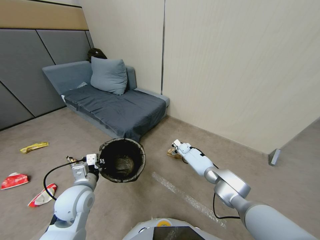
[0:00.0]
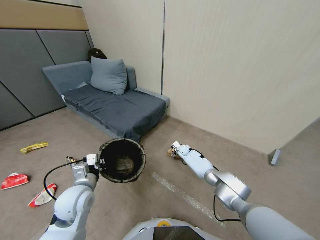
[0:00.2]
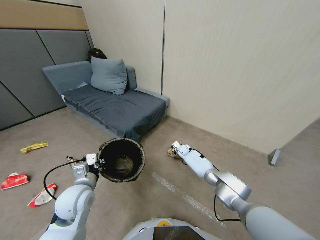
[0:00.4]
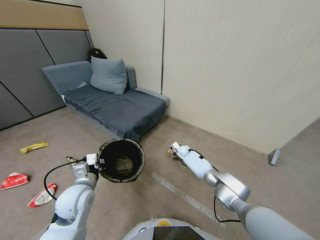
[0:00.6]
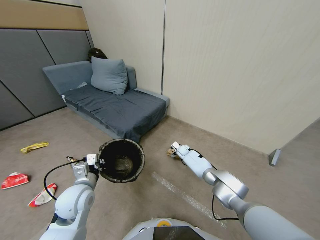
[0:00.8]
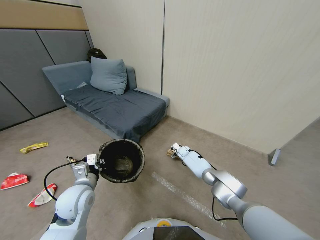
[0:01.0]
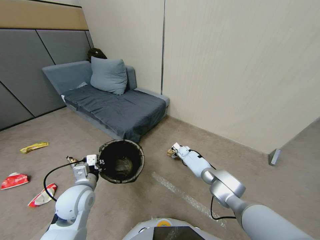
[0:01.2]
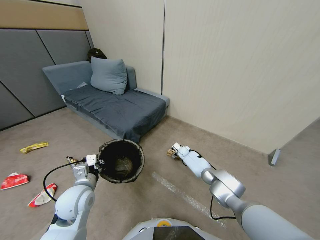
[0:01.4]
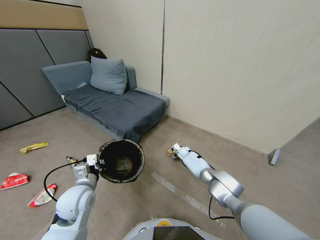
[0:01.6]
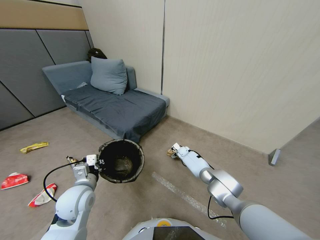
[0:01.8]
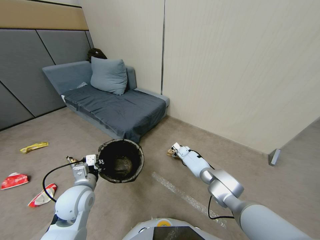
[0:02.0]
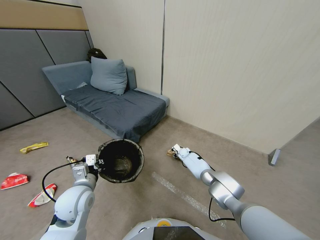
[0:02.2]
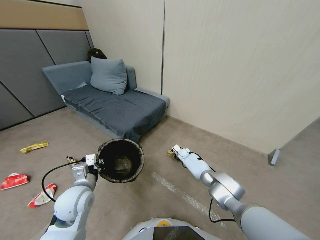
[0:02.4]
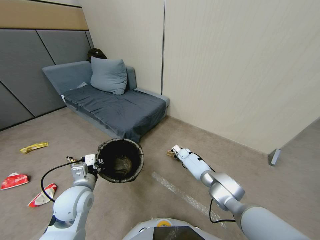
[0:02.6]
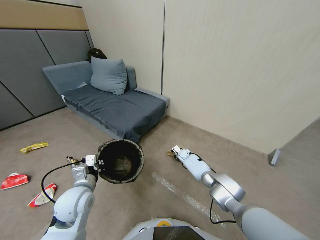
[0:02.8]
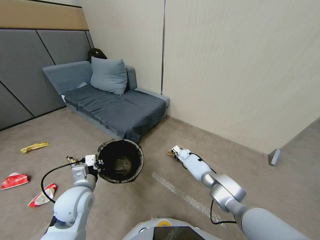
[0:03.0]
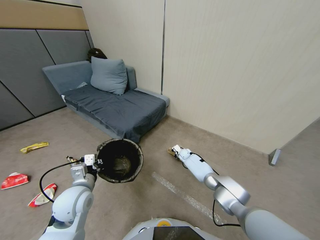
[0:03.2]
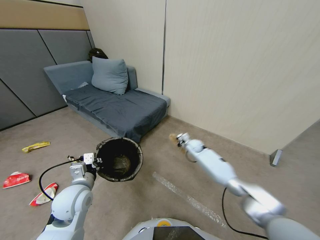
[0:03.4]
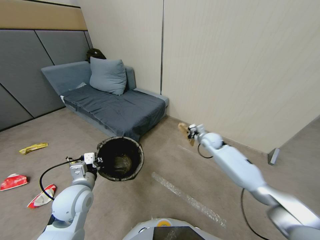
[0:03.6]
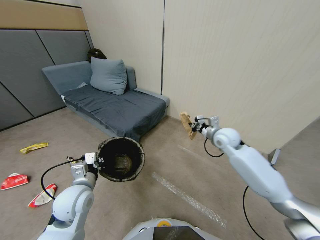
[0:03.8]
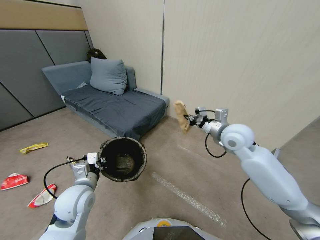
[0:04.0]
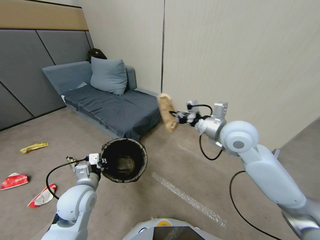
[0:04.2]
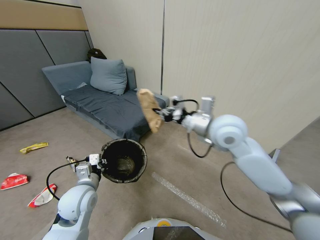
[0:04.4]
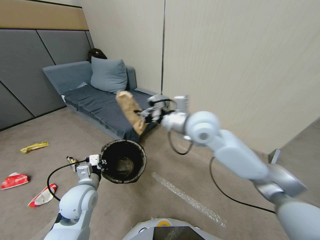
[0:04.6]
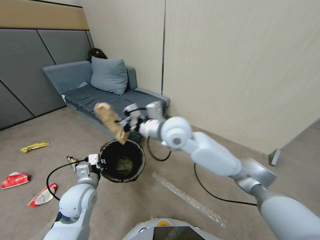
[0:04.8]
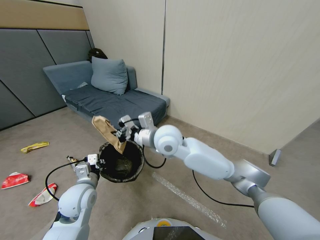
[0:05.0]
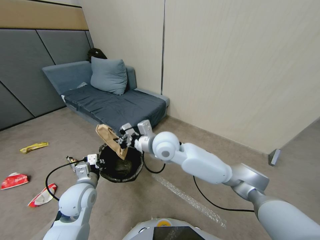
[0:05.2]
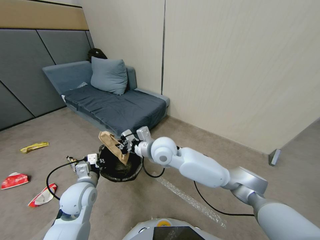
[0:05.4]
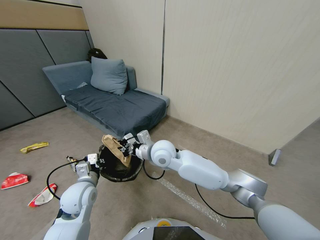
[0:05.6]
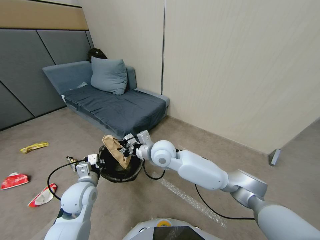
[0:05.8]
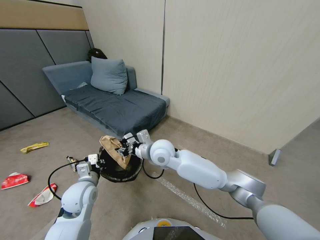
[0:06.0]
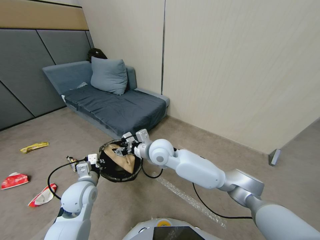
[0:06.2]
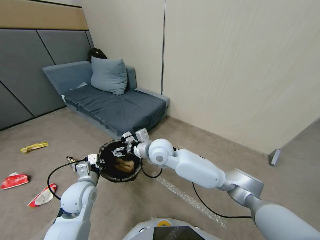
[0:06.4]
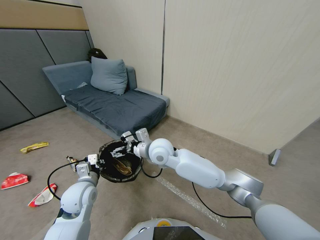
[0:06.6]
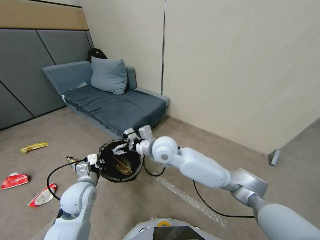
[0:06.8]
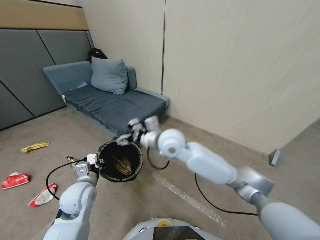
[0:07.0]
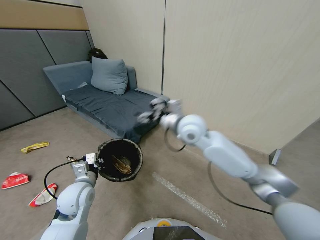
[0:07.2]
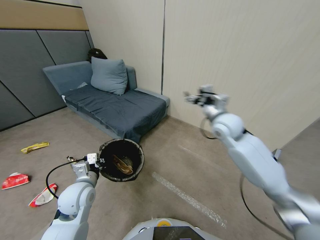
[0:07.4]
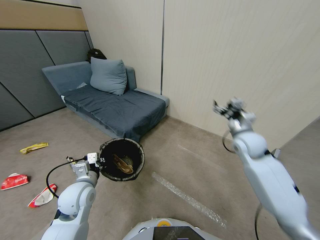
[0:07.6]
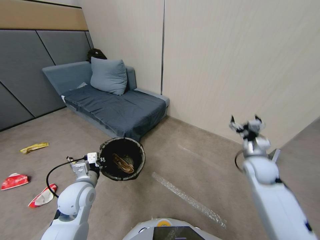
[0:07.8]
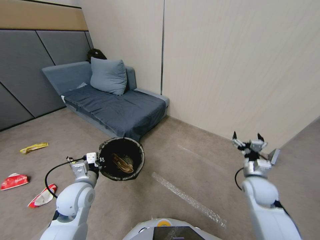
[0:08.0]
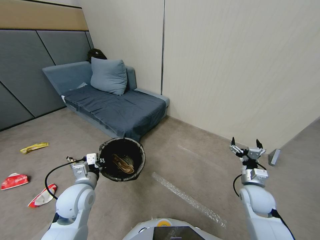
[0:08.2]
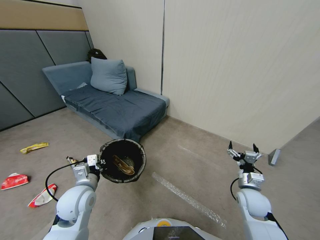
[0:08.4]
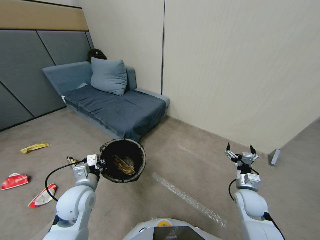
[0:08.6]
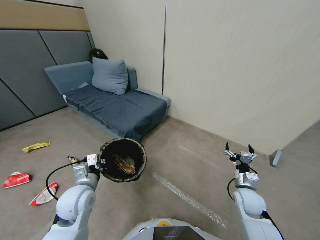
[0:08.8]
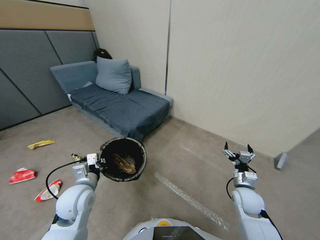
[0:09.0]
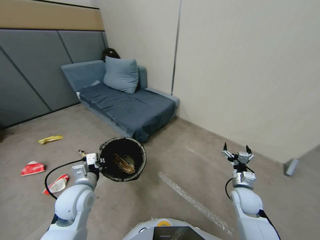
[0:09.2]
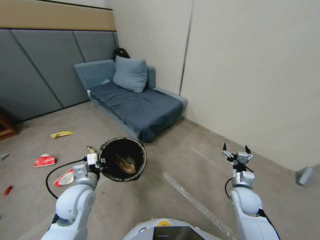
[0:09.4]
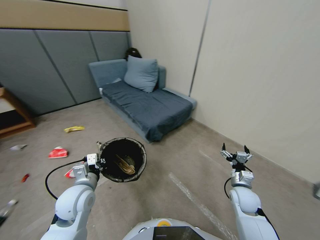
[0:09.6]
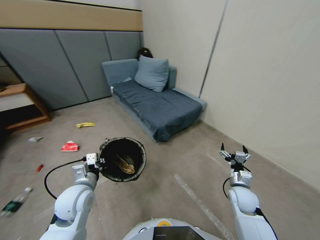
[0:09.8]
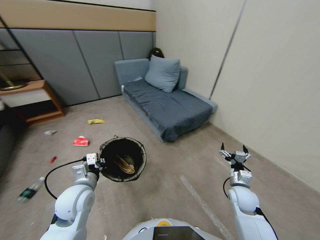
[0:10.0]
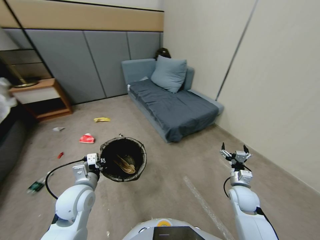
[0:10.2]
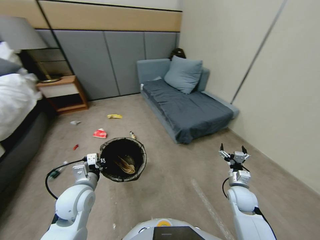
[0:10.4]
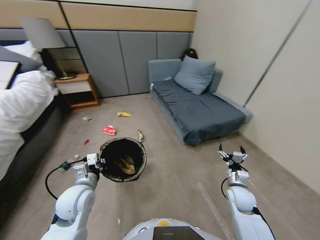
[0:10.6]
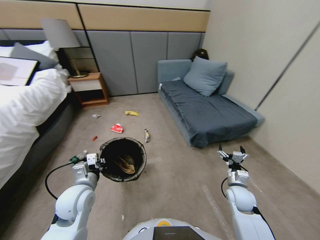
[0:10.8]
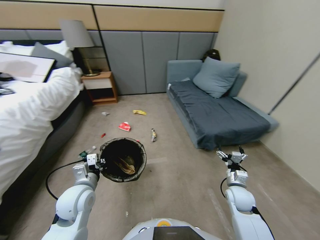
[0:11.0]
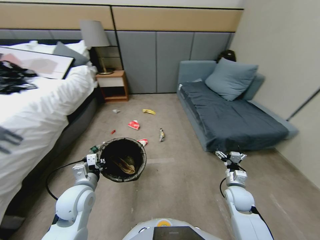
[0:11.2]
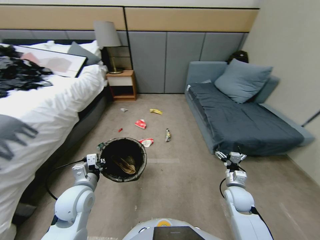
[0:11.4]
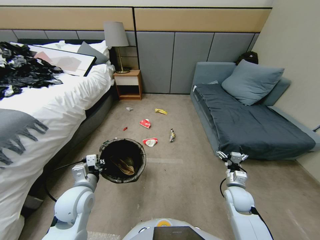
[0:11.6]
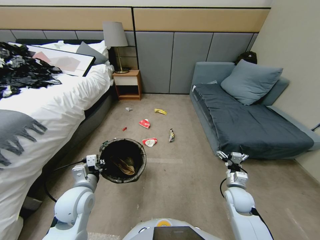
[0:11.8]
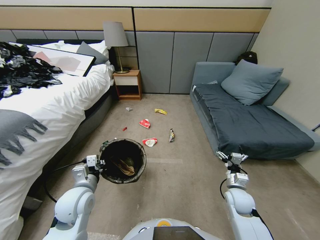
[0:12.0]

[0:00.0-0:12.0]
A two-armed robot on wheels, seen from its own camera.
Task of the whole recording: Pick up the trash bin, then pick up the garbage from the floor and place it into the trash bin.
0:00.0 to 0:01.6: There are only small adjustments of the grippers.
0:01.6 to 0:03.0: The right gripper closes its fingers.
0:03.0 to 0:04.4: The right gripper moves upward and backward, approximately 50 cm.
0:04.4 to 0:06.0: The right gripper moves to the left and downward, roughly 20 cm, and opens.
0:06.0 to 0:07.6: The right gripper travels to the right by approximately 35 cm, and opens.
0:07.6 to 0:09.0: The right gripper heads downward and backward, covering about 20 cm.

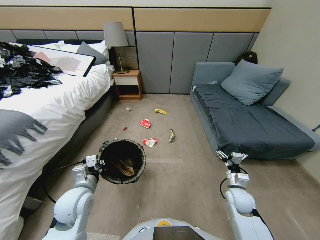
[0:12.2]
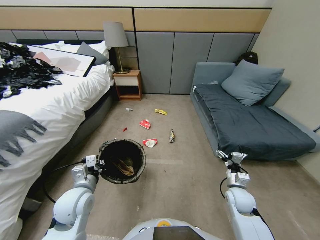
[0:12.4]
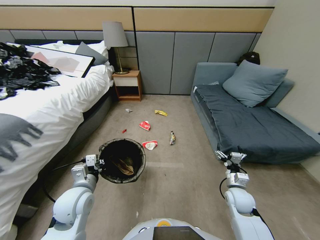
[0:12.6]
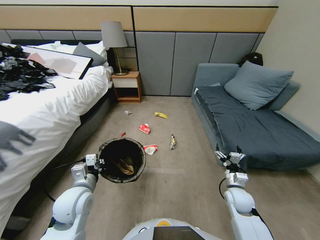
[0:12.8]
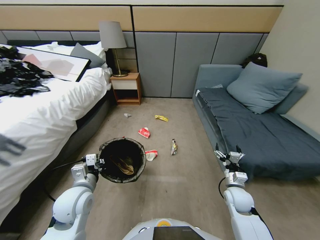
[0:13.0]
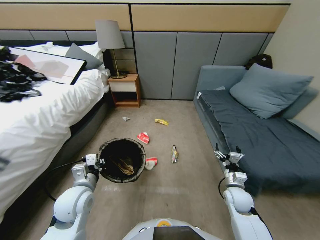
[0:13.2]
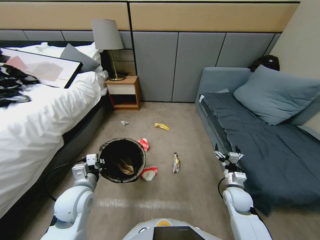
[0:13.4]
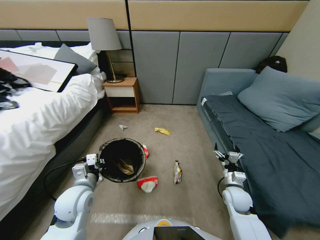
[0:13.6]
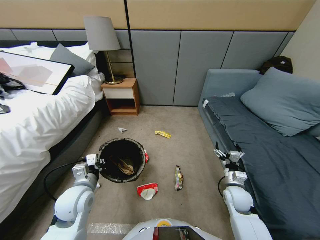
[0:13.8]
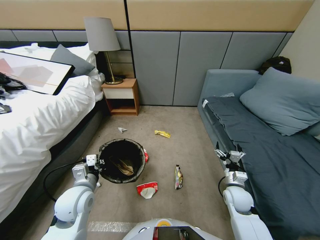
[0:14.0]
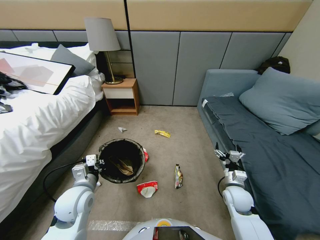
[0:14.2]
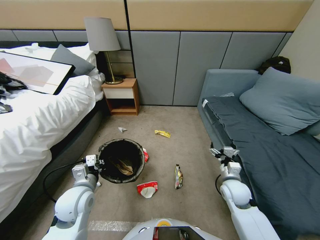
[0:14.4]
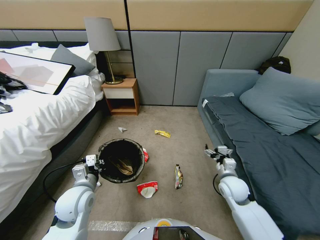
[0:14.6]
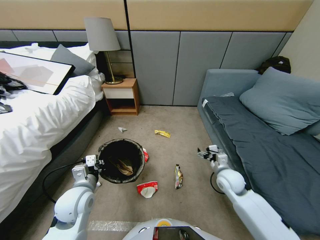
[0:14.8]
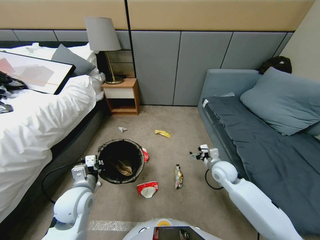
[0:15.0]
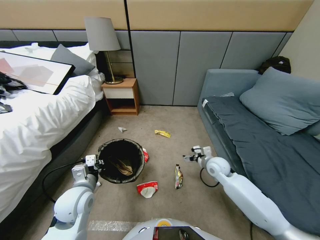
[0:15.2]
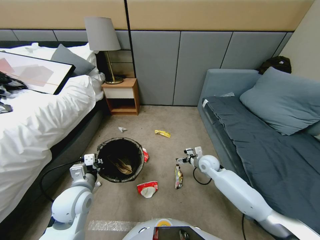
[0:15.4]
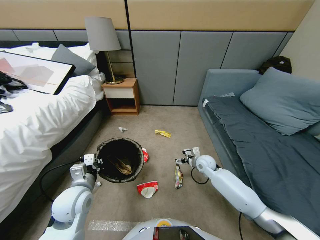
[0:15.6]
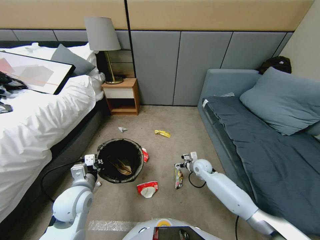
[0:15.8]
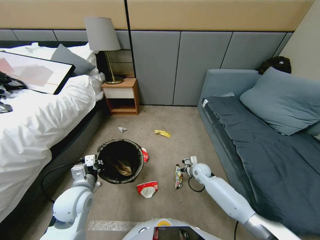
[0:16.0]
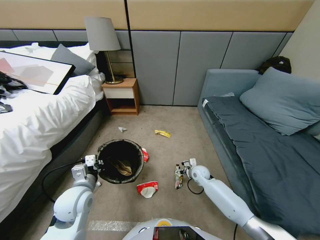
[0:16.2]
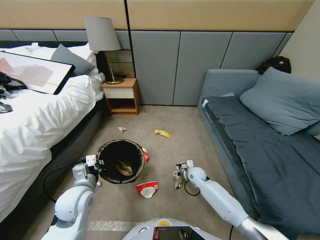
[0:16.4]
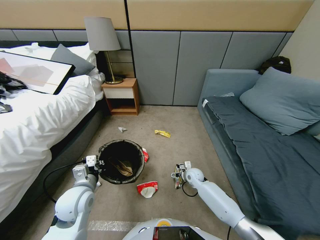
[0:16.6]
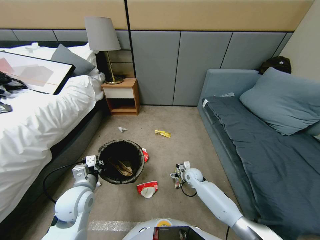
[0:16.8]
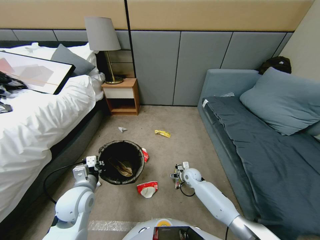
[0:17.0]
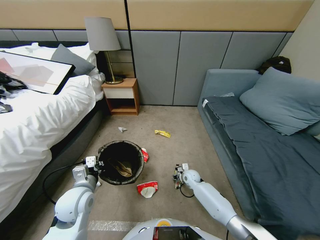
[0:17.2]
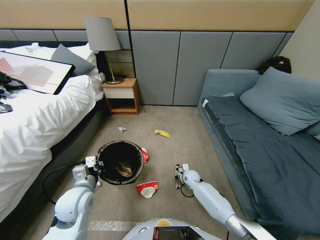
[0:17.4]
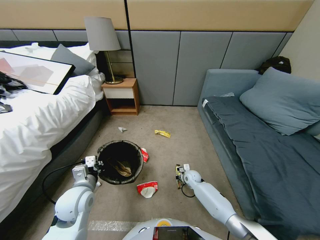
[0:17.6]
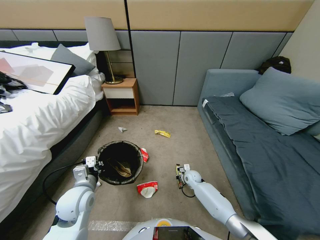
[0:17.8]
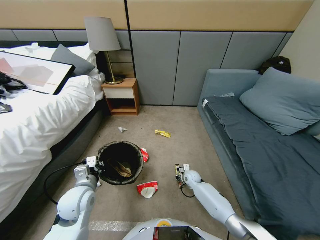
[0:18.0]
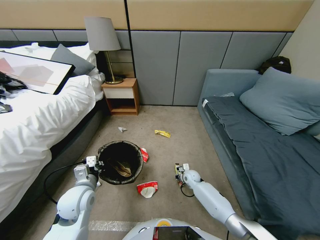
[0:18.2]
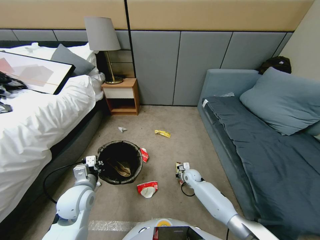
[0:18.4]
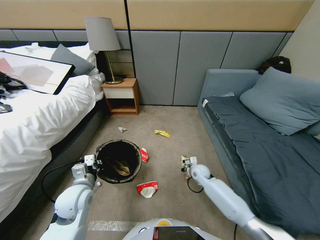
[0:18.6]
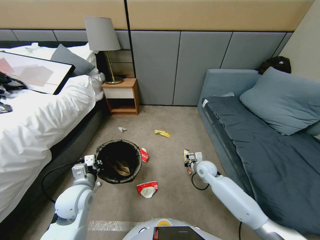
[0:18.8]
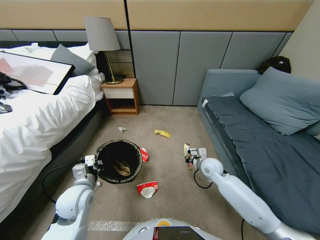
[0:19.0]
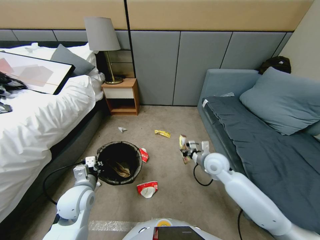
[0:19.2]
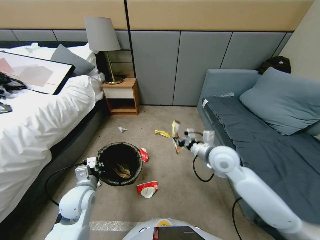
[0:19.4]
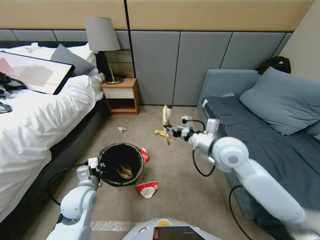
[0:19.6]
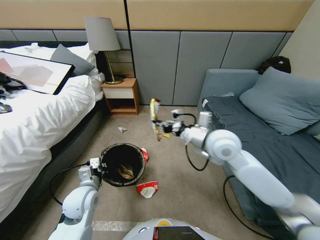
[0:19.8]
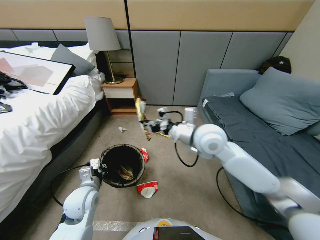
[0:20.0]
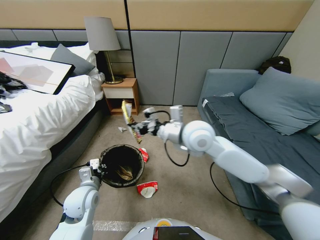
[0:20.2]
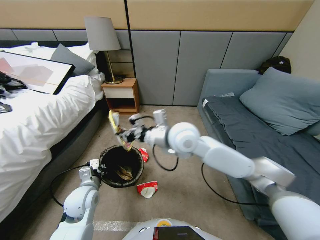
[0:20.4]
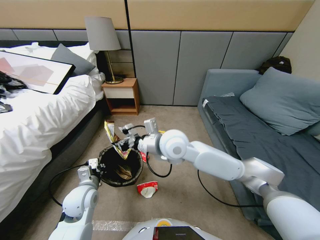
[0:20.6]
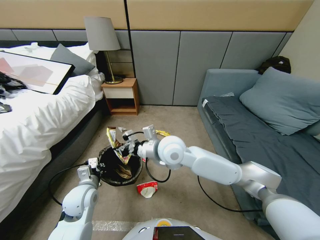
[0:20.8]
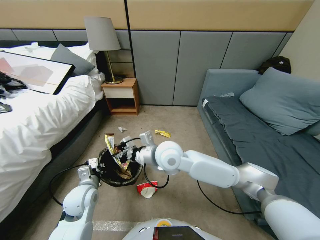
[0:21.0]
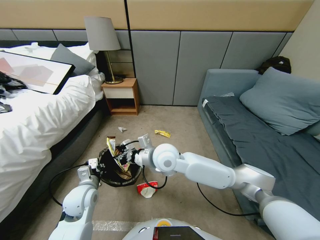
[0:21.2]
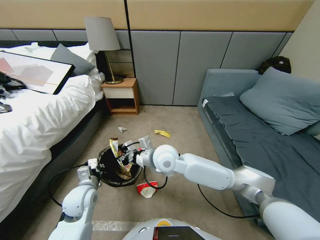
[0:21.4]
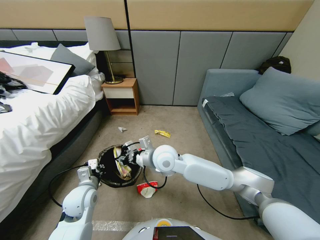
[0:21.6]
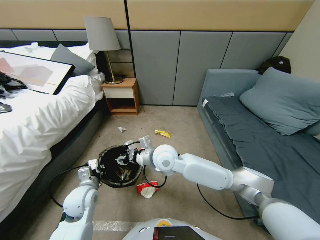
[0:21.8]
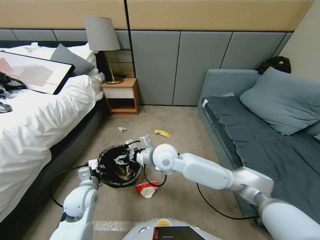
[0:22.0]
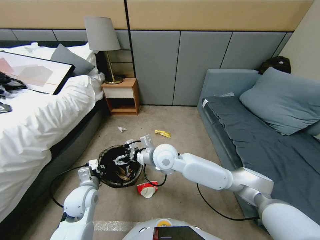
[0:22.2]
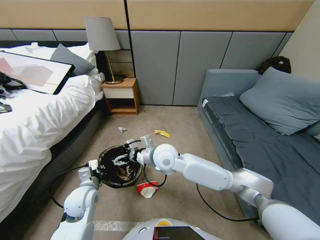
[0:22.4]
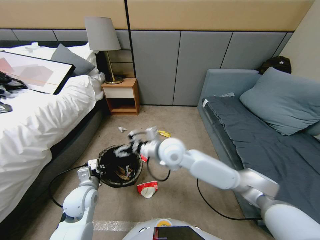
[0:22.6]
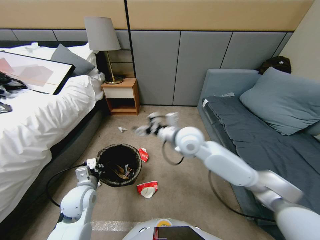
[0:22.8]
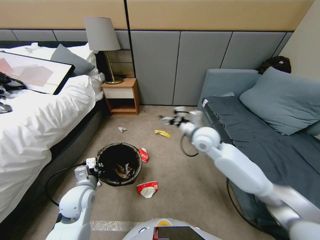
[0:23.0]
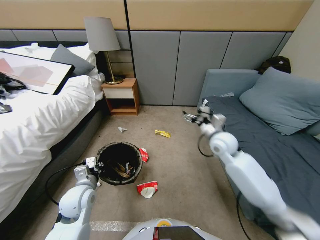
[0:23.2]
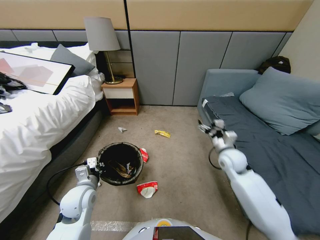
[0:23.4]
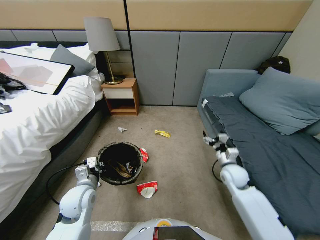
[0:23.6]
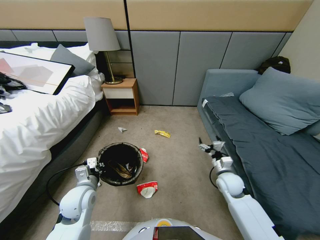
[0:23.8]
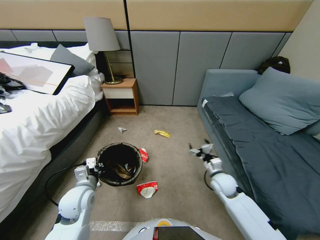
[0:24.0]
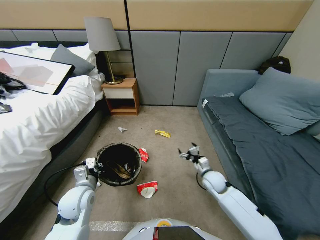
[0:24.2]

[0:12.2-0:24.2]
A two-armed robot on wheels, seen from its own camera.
Task of the whole recording: Pick up the trash bin, then pick up the garbage from the floor and place it into the trash bin.
0:13.8 to 0:15.2: The right gripper travels forward and to the left by roughly 15 cm.
0:15.2 to 0:16.6: The right gripper moves downward and to the left, some 15 cm.
0:16.6 to 0:18.2: The right gripper closes.
0:18.2 to 0:19.8: The right gripper moves upward, some 40 cm.
0:19.8 to 0:21.2: The right gripper goes some 15 cm to the left and downward.
0:21.2 to 0:22.6: The right gripper goes approximately 5 cm to the right, and opens up.
0:22.6 to 0:24.2: The right gripper heads downward and to the right, covering about 30 cm.
